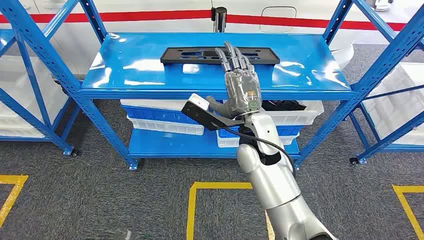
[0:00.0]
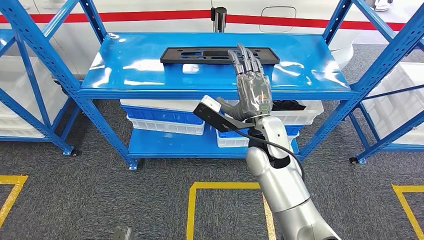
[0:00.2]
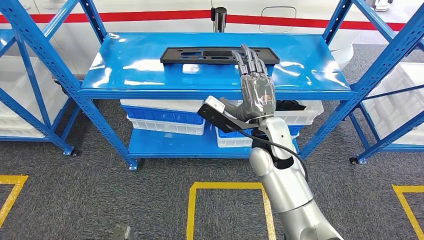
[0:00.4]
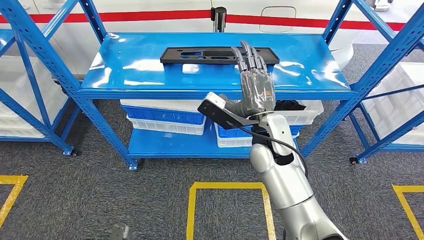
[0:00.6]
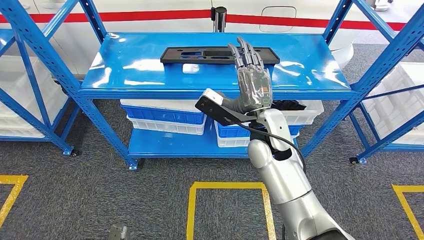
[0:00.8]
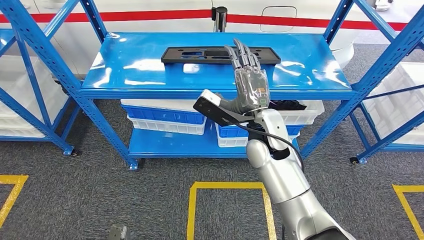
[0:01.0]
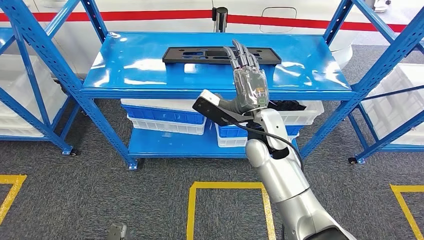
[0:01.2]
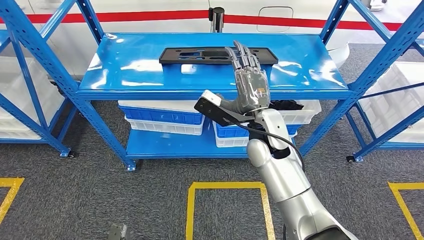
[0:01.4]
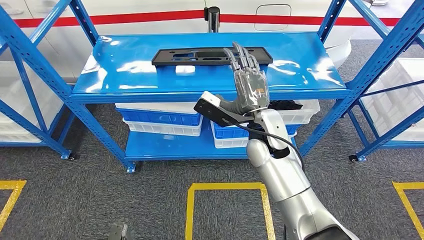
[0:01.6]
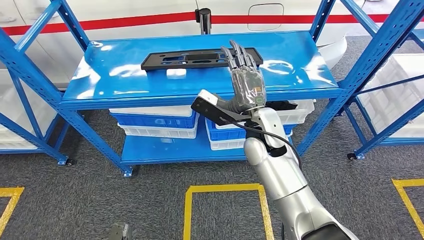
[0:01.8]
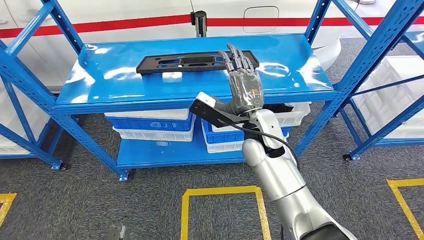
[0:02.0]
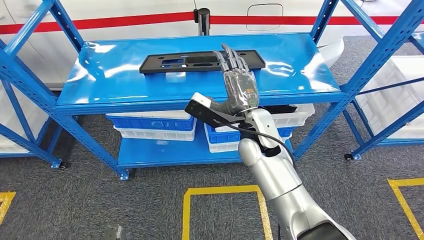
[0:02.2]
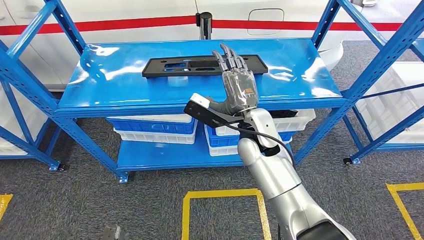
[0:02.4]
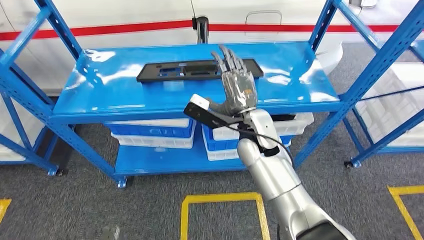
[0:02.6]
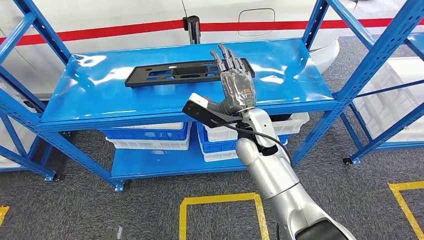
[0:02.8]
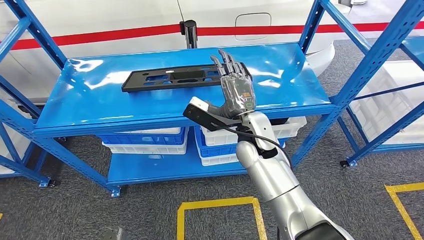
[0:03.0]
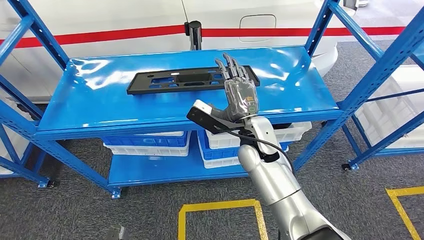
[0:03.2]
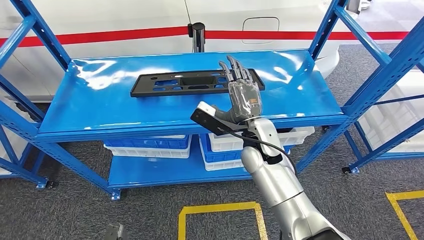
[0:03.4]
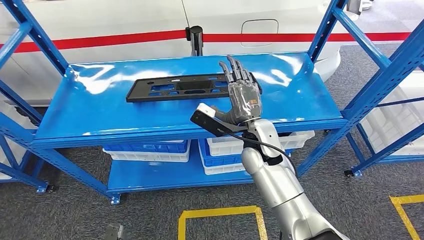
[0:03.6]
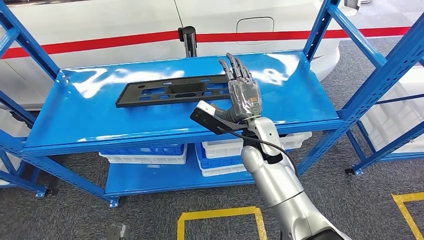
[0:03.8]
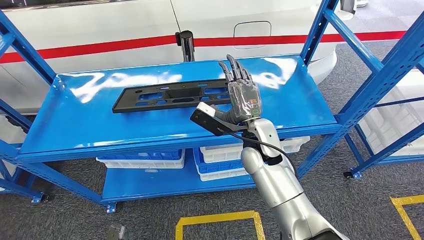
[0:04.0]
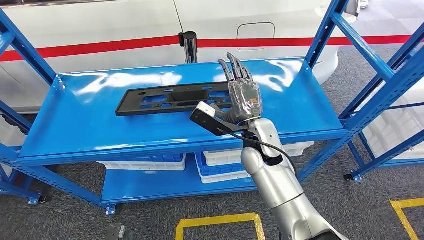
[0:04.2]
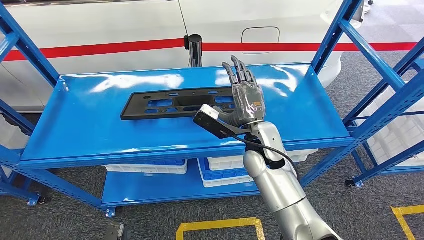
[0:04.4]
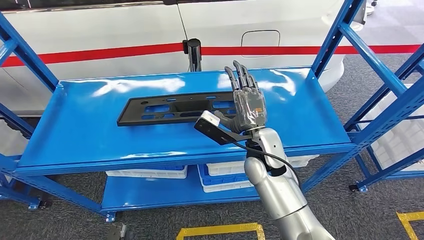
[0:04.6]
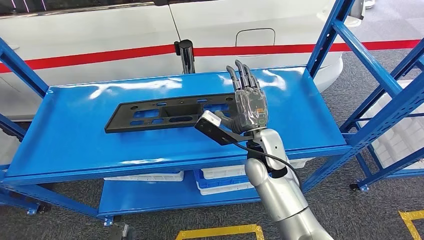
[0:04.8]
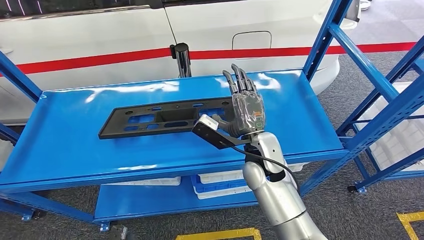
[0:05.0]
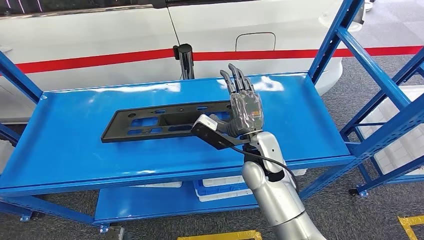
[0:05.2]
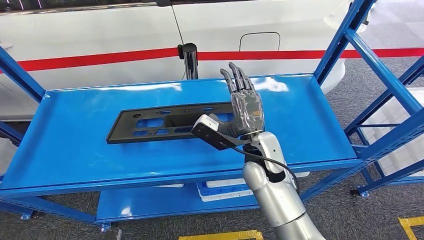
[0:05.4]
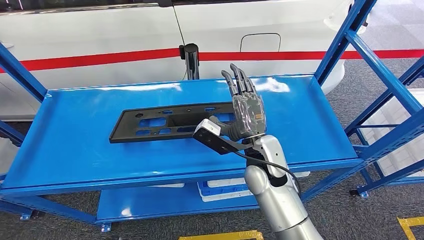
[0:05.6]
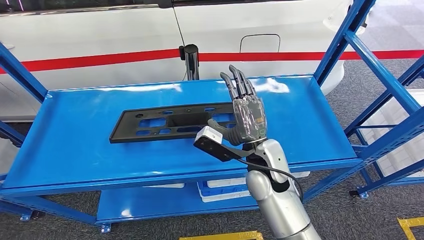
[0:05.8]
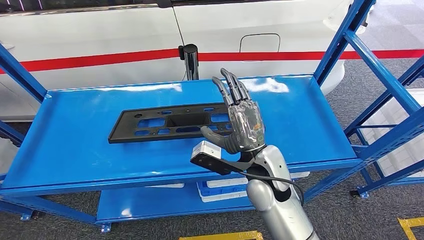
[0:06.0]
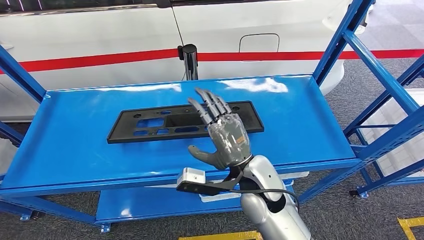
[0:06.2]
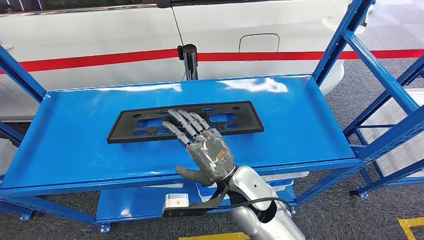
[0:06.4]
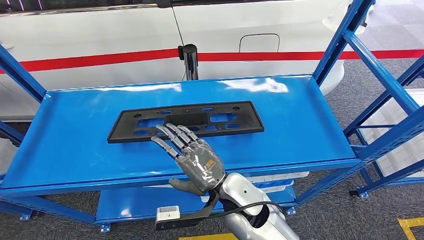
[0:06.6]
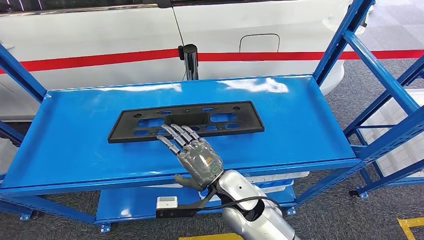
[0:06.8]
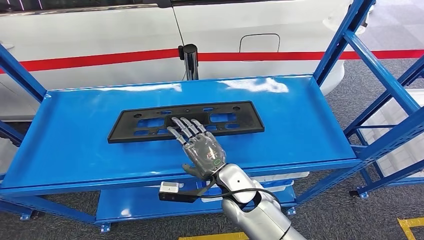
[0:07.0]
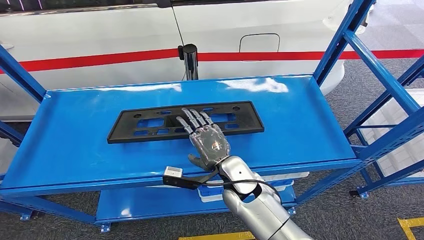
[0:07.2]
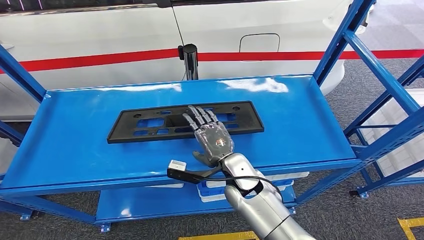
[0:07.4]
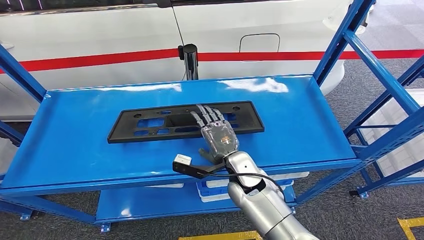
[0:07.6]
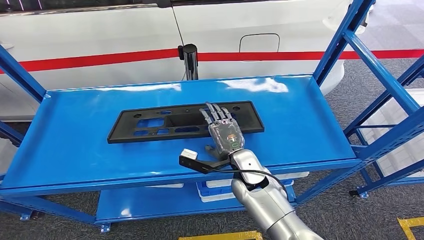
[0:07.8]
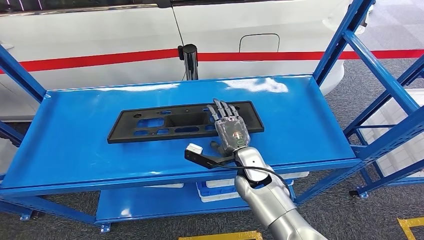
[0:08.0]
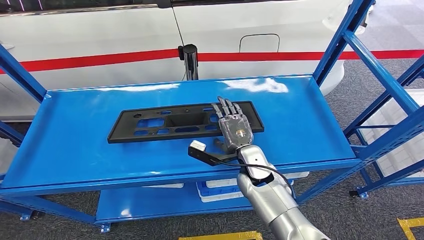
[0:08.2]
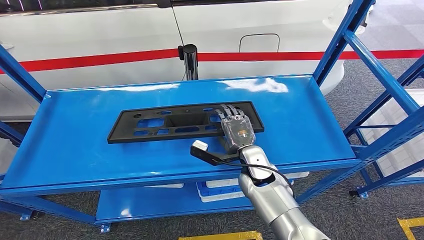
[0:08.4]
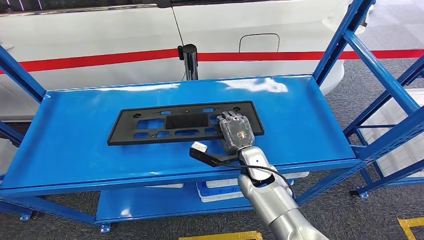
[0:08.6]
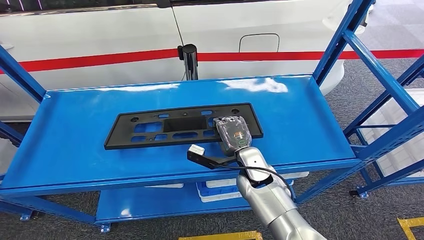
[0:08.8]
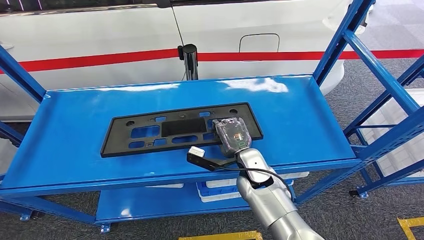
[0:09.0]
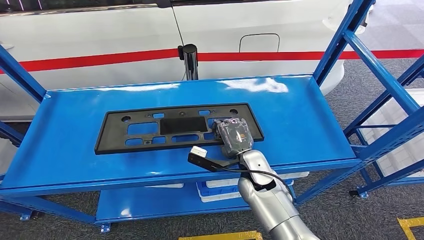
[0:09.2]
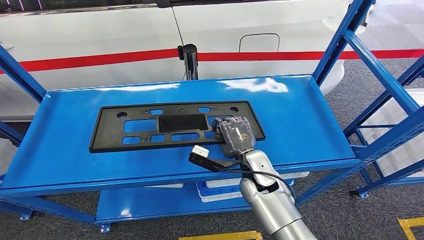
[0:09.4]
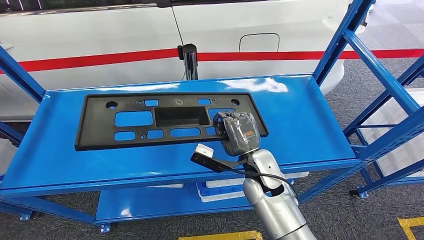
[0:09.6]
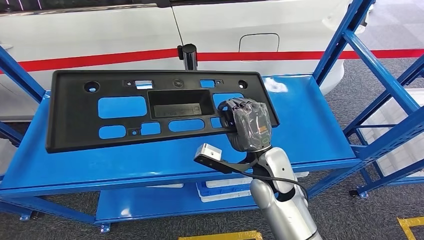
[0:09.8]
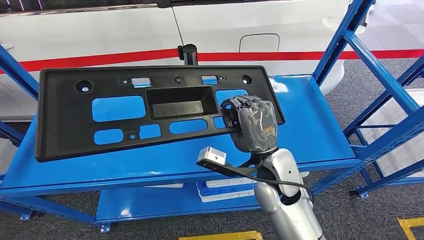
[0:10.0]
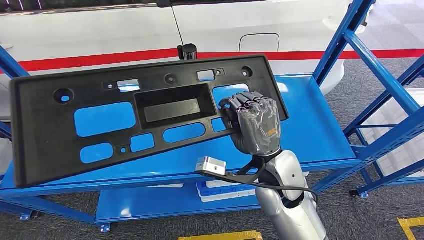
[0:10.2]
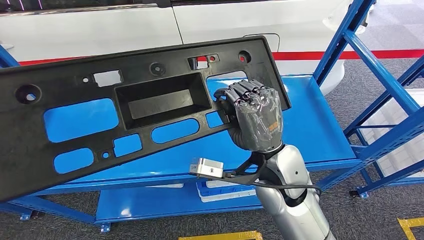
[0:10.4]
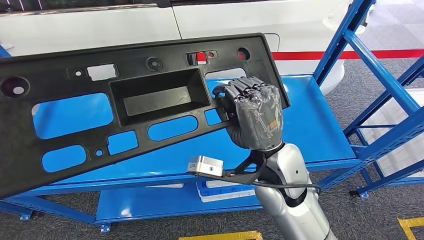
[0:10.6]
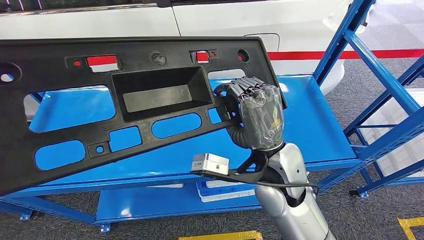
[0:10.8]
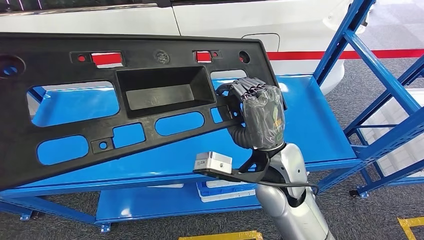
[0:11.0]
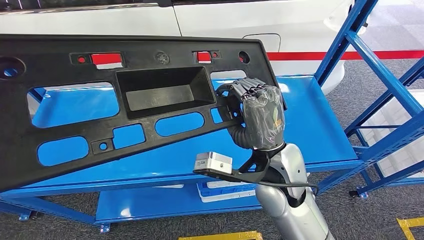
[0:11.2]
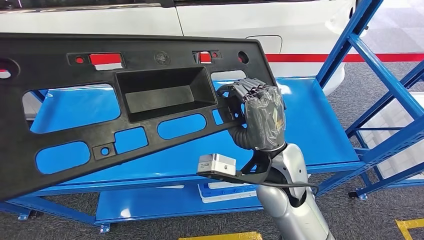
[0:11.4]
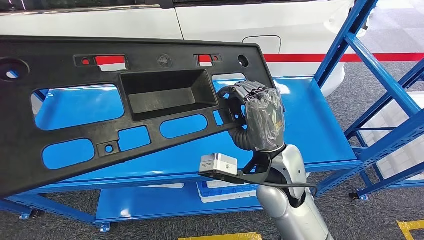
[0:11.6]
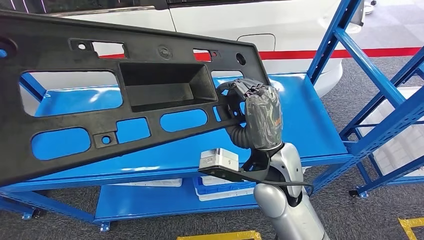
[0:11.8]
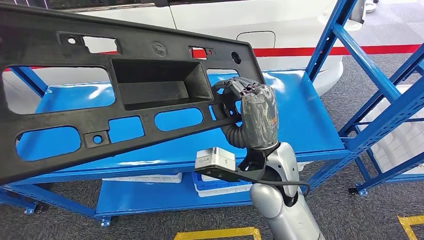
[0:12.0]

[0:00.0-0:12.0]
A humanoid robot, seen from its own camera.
0:06.0 to 0:07.6: The right hand shifts about 10 cm downward.
0:07.6 to 0:09.0: There are only small adjustments of the hands.

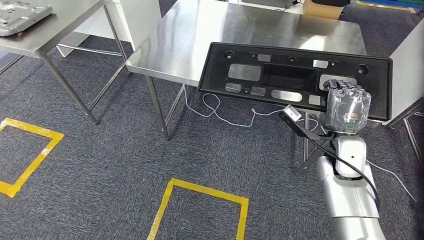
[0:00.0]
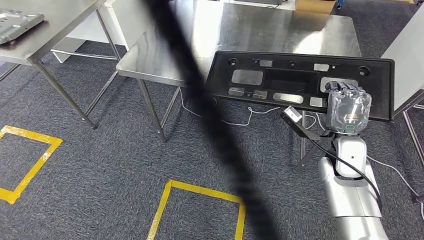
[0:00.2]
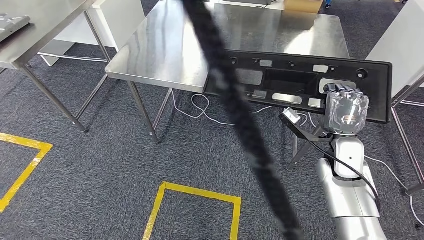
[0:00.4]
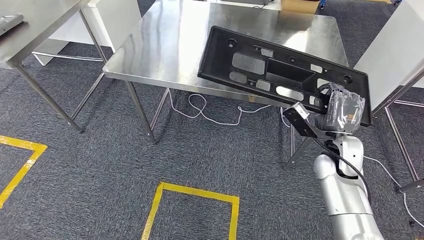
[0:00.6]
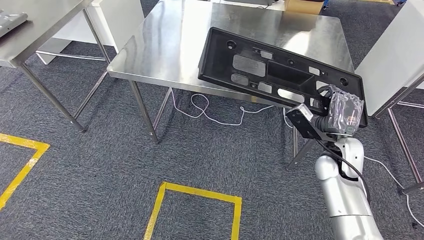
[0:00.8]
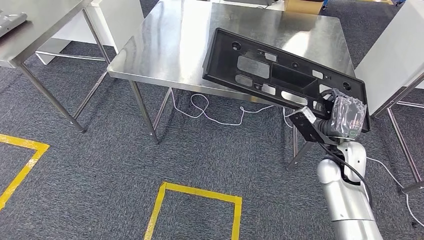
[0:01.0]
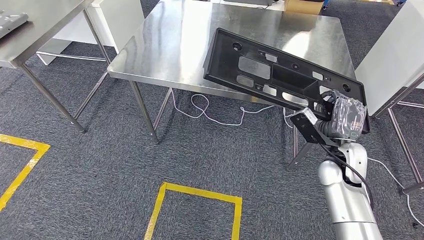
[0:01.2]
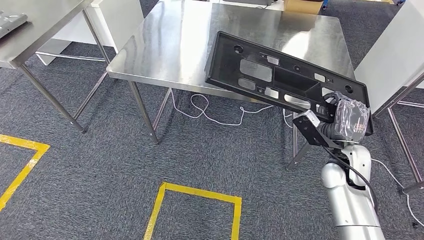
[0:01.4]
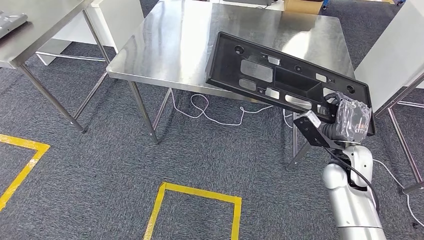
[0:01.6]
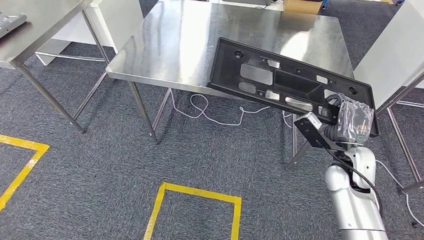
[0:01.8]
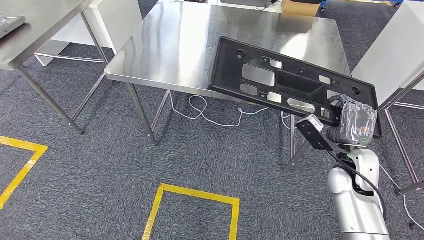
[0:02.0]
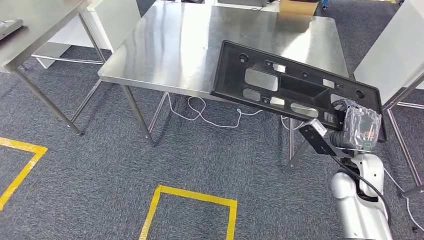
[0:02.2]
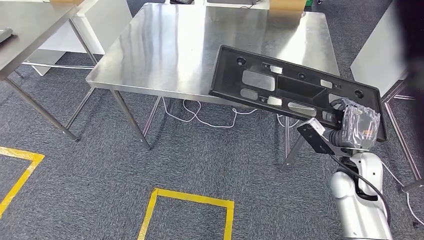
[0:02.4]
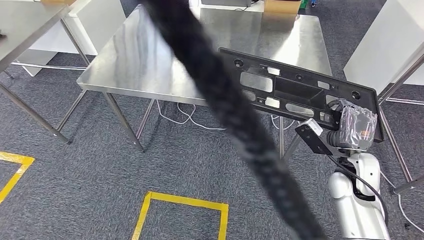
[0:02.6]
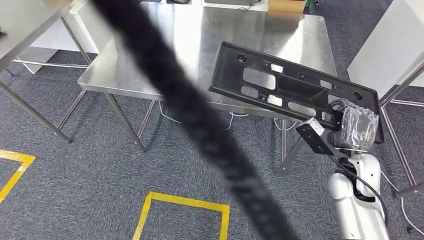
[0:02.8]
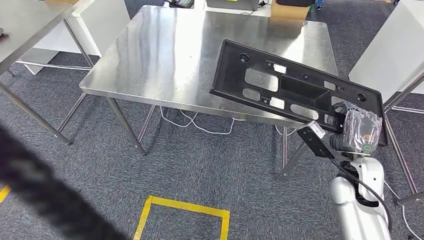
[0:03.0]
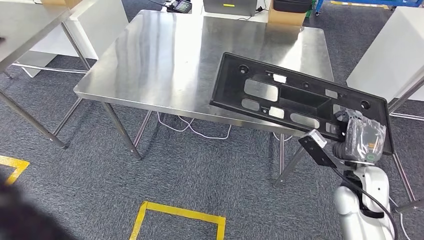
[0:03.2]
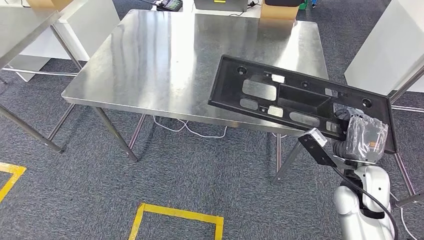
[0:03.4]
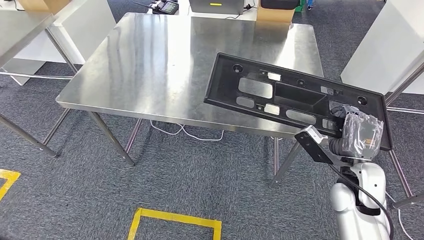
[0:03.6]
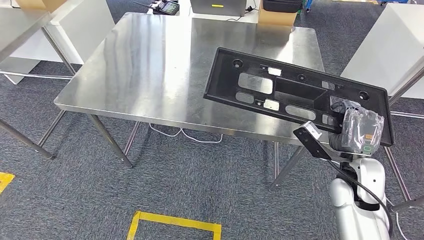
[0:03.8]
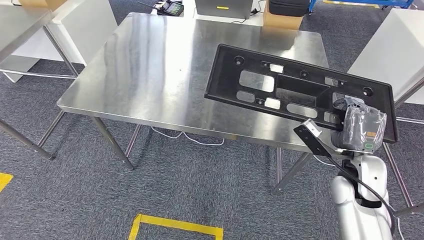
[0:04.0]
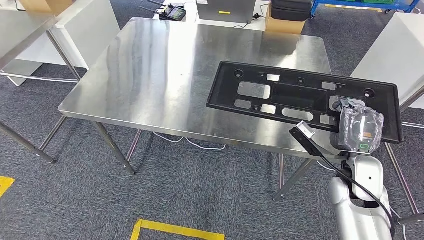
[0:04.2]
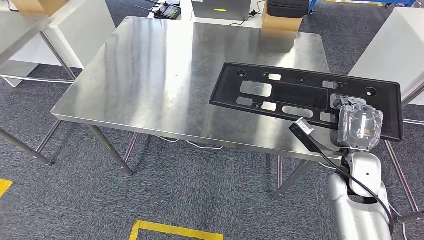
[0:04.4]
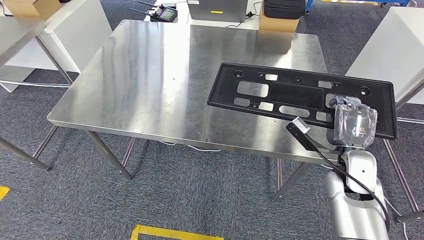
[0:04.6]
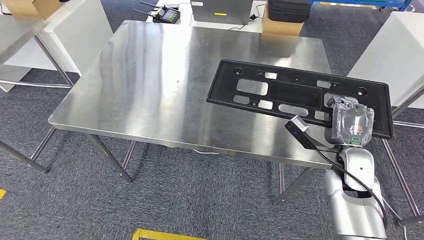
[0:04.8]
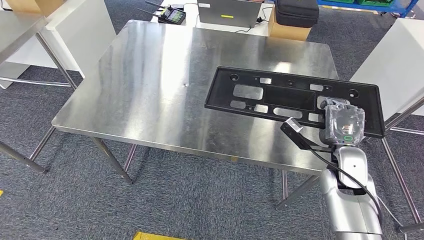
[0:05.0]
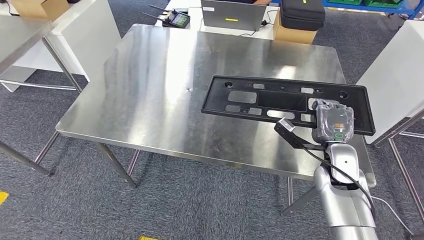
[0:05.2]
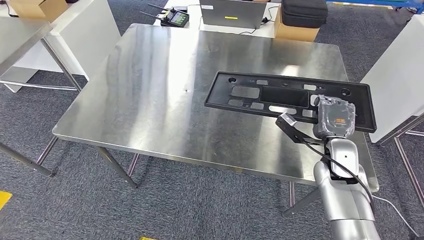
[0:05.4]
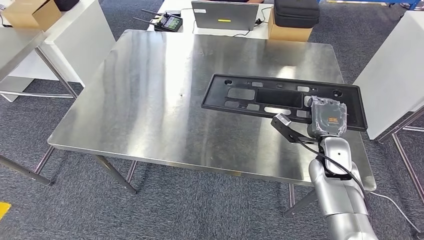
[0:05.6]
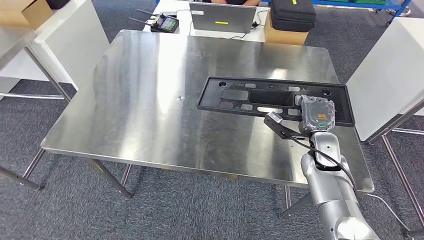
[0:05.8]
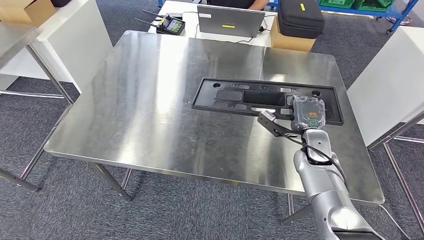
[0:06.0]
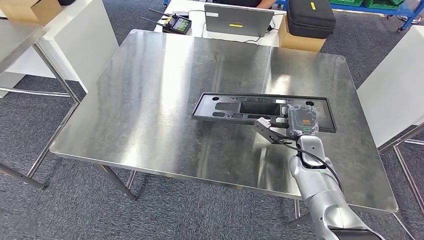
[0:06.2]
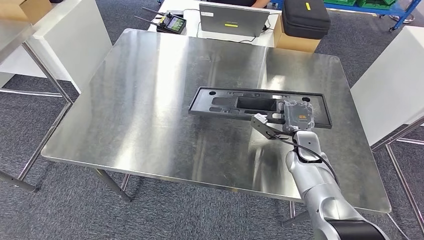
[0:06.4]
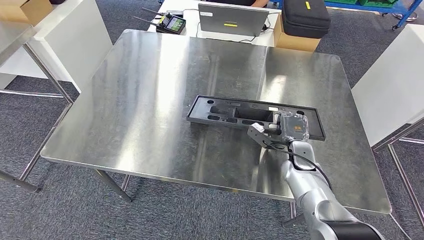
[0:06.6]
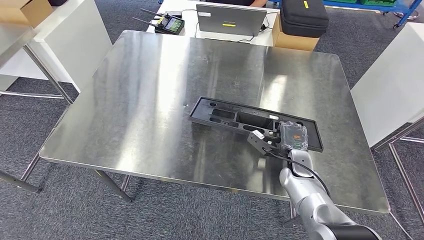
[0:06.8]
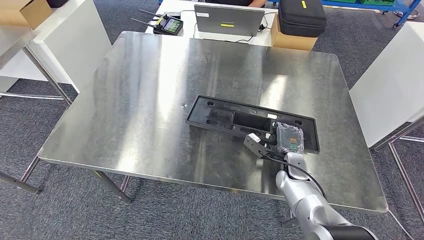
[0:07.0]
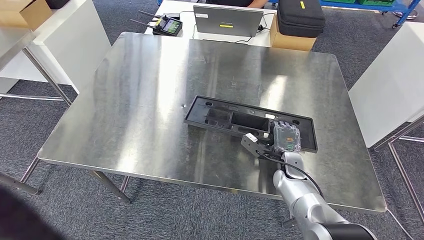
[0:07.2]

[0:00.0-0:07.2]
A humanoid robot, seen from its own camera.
Step, 0:00.0 to 0:02.2: Move the large material to the workbench.
